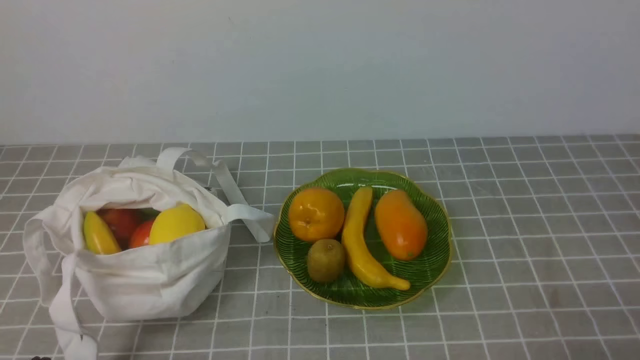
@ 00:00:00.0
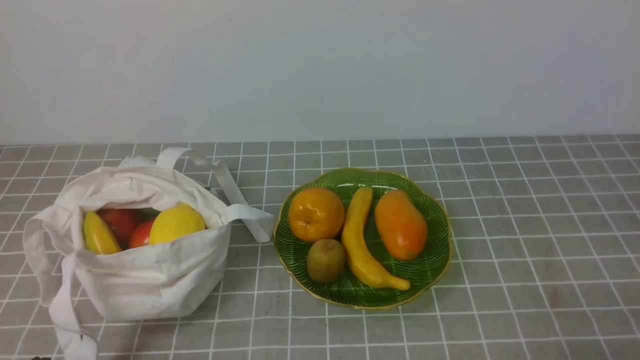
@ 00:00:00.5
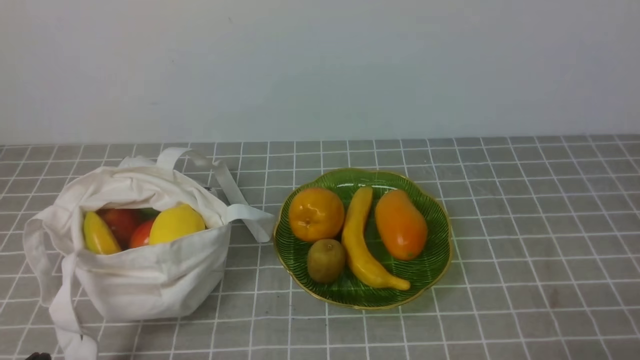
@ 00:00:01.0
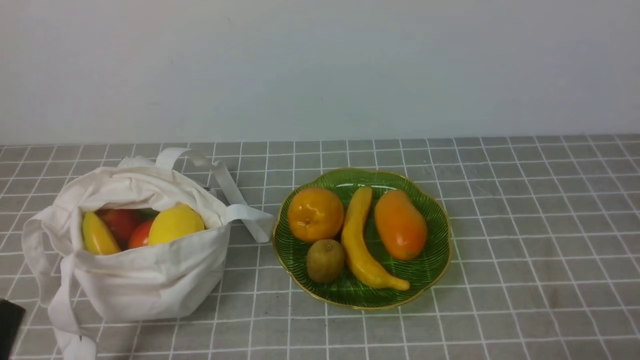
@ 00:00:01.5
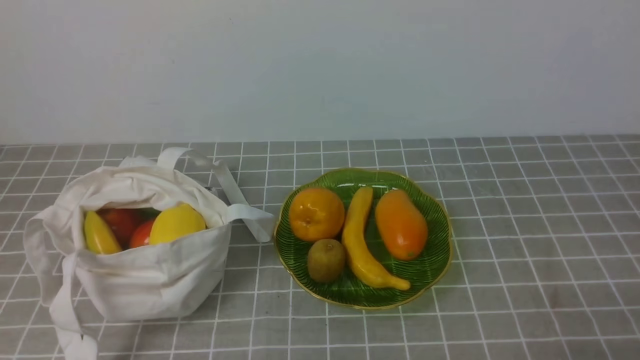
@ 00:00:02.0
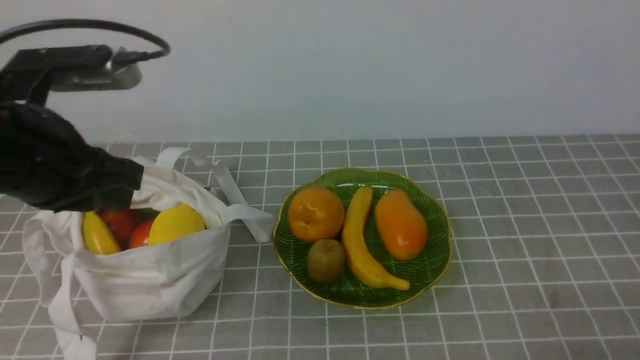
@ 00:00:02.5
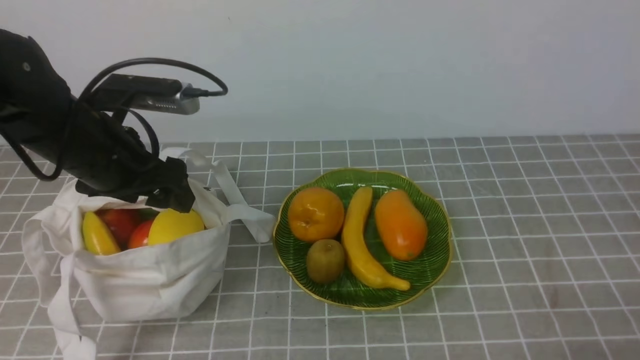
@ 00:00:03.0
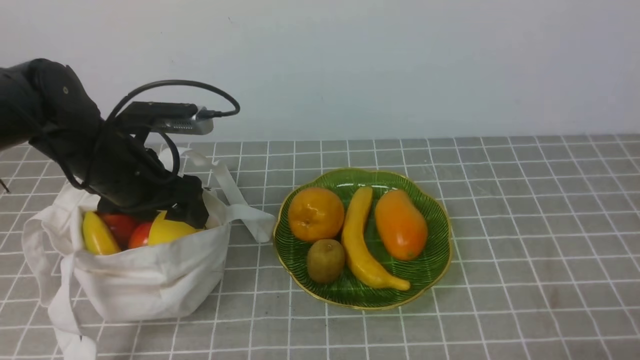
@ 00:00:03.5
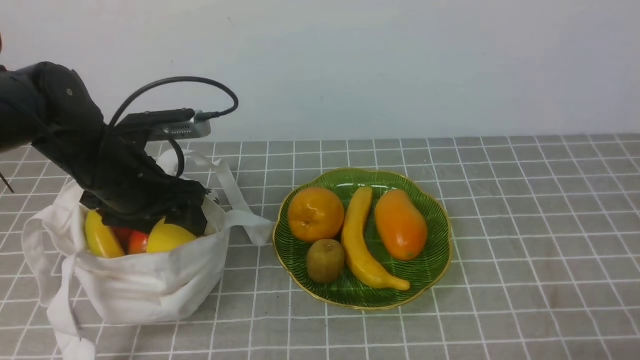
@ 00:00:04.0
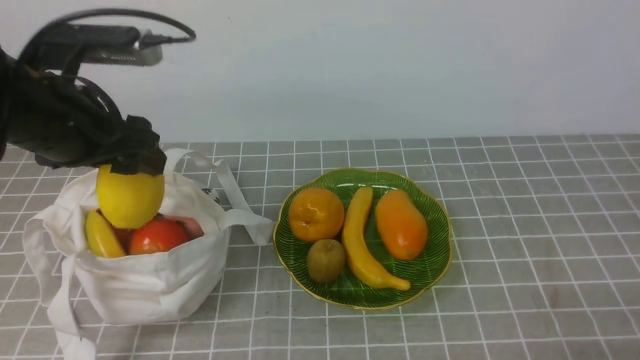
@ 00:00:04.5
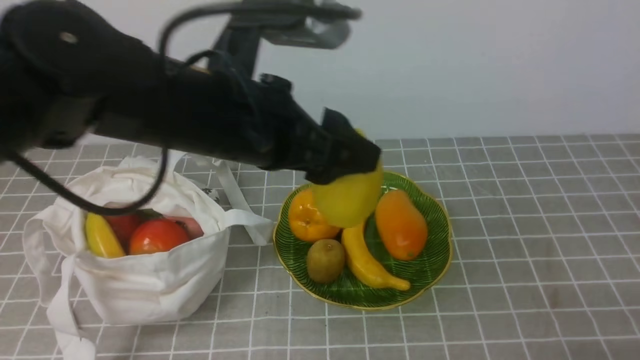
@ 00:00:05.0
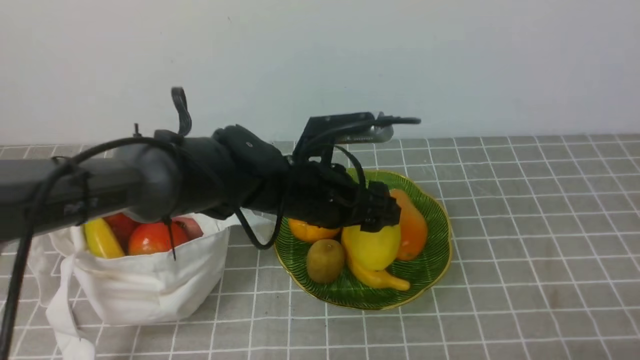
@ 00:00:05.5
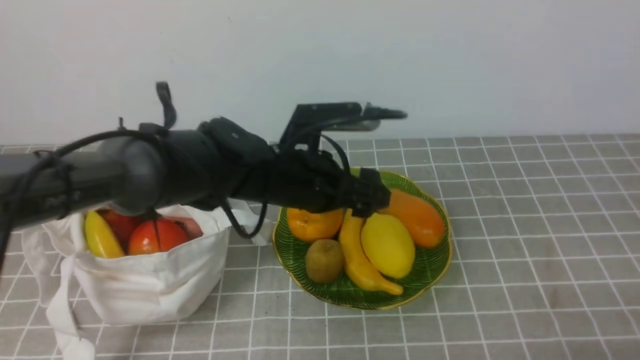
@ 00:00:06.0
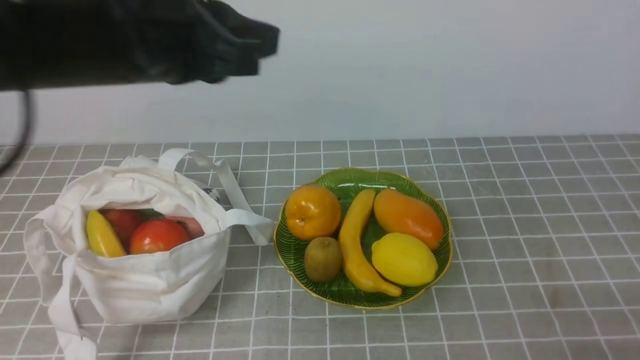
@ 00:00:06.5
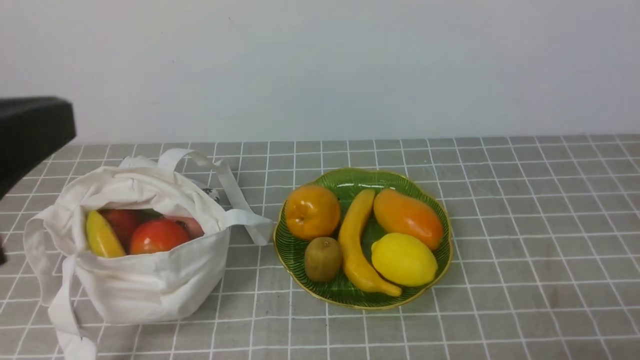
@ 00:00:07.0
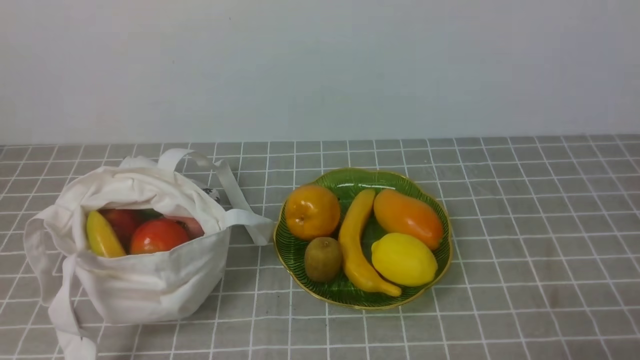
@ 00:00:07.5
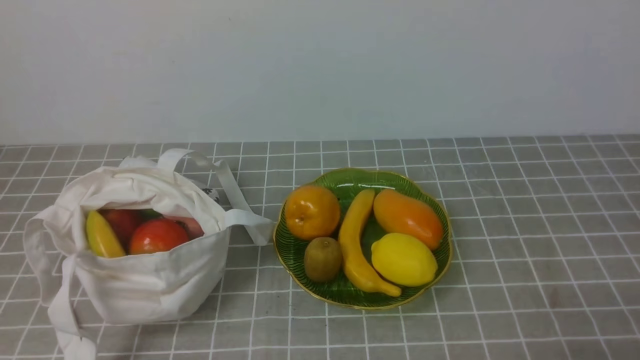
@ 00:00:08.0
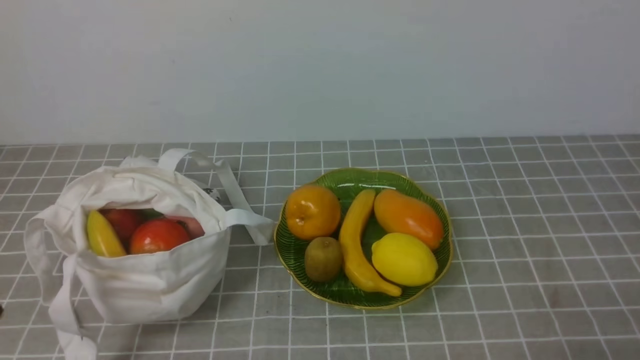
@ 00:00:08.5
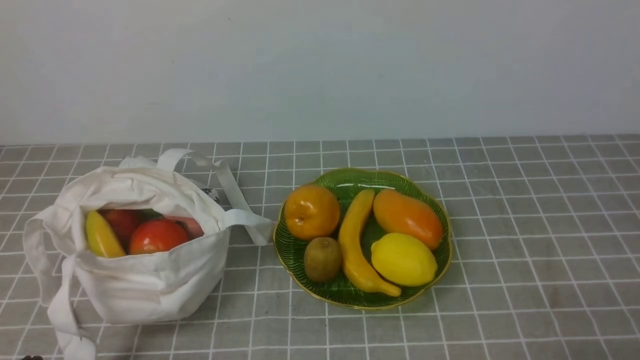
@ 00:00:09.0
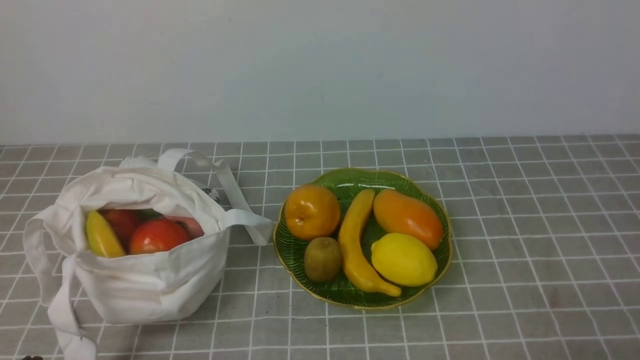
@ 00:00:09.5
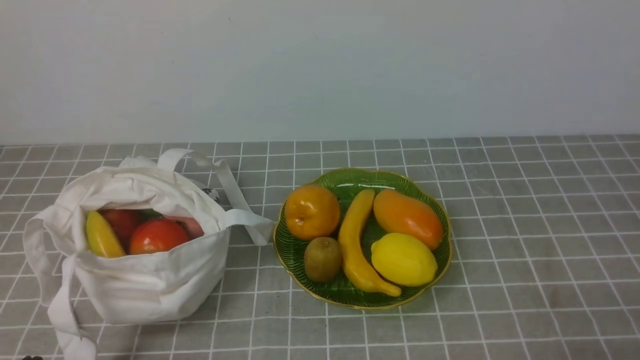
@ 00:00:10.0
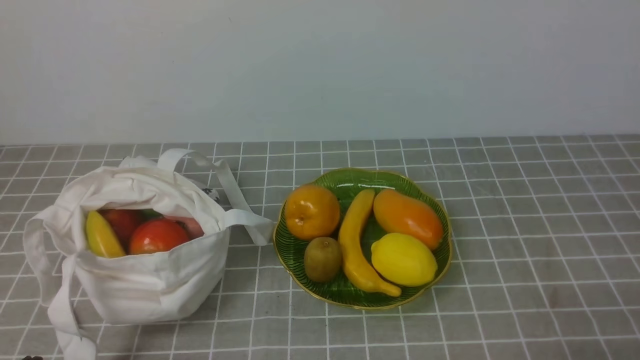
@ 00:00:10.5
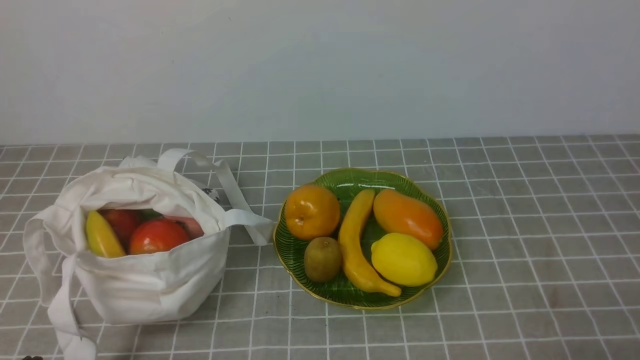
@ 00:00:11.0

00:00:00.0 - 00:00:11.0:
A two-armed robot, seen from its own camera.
Step, 00:00:00.0 - 00:00:03.5: use the left arm to grab a lemon from the bag.
Step, 00:00:04.5 - 00:00:05.5: use the left arm to put the lemon into the empty plate on the right.
00:00:02.0 - 00:00:03.5: The left gripper goes roughly 30 cm forward, and opens.
00:00:03.5 - 00:00:05.5: The left gripper moves to the right, some 20 cm.
00:00:05.5 - 00:00:07.5: The left gripper goes roughly 40 cm backward, to the left and upward, and closes its fingers.
00:00:09.0 - 00:00:11.0: The two grippers keep their place.
